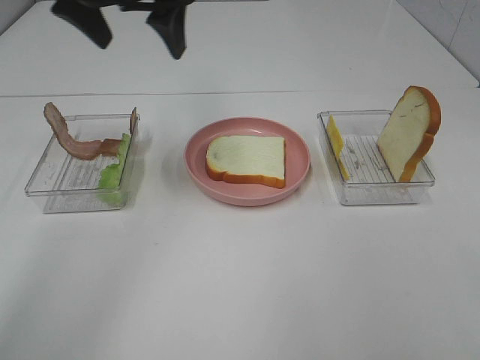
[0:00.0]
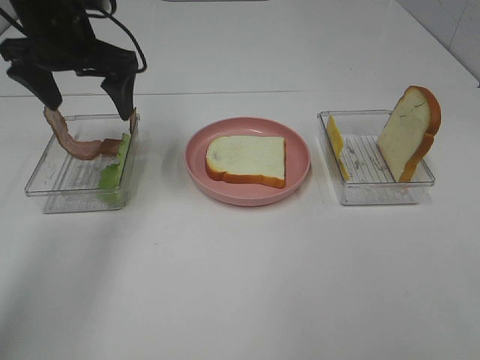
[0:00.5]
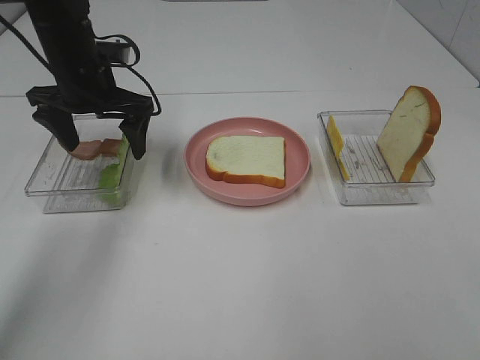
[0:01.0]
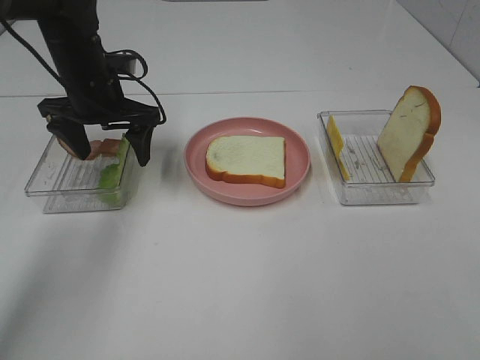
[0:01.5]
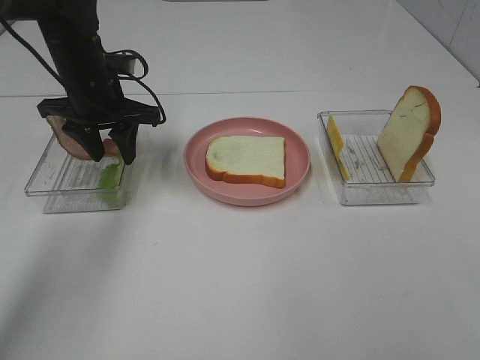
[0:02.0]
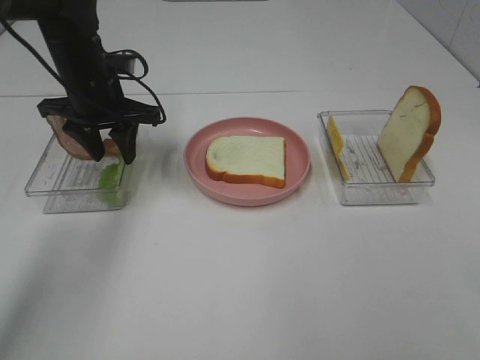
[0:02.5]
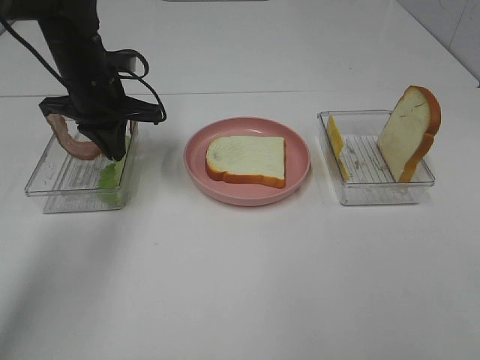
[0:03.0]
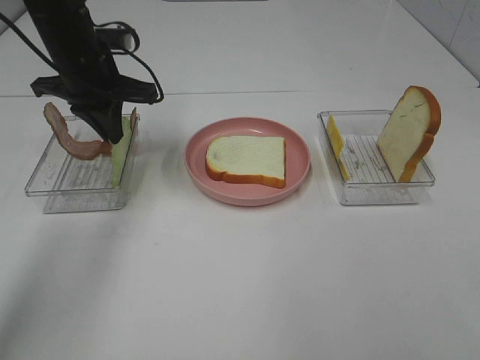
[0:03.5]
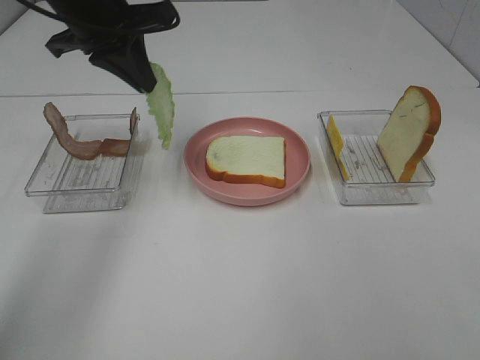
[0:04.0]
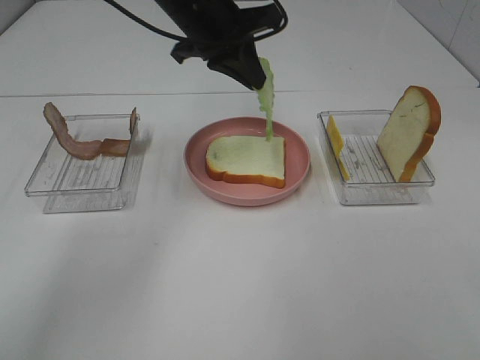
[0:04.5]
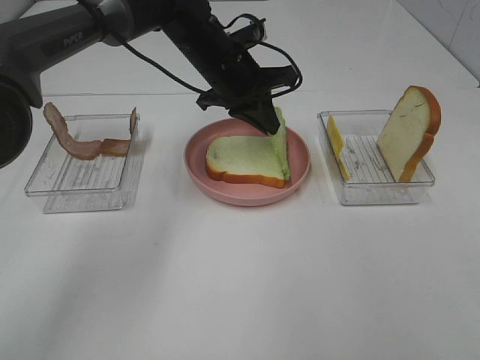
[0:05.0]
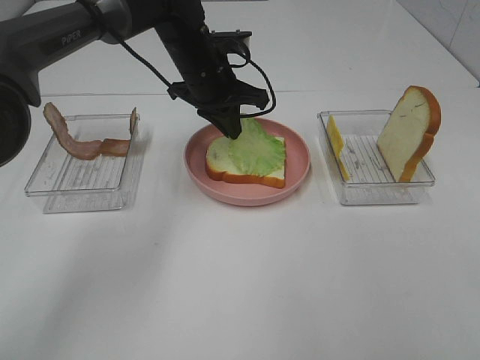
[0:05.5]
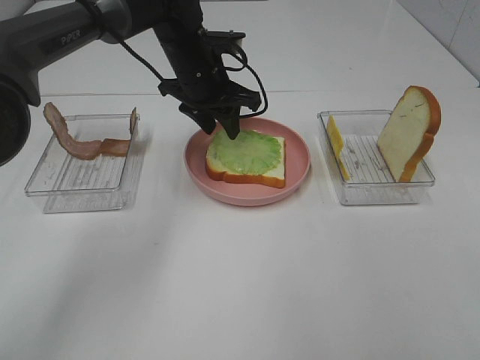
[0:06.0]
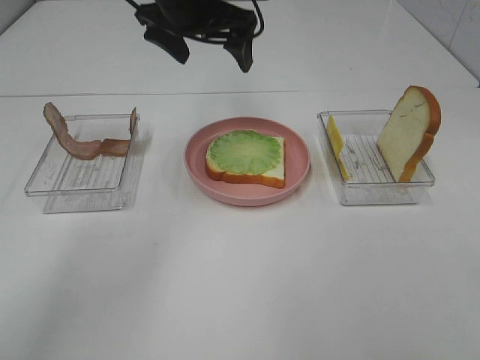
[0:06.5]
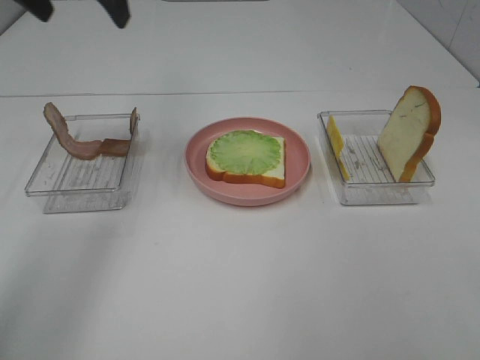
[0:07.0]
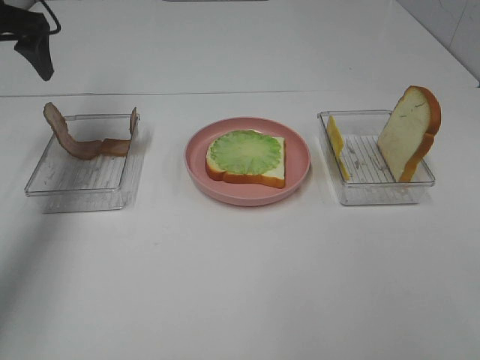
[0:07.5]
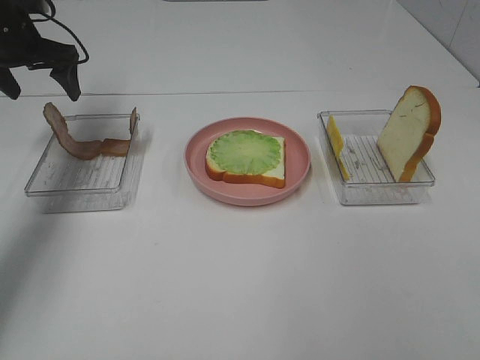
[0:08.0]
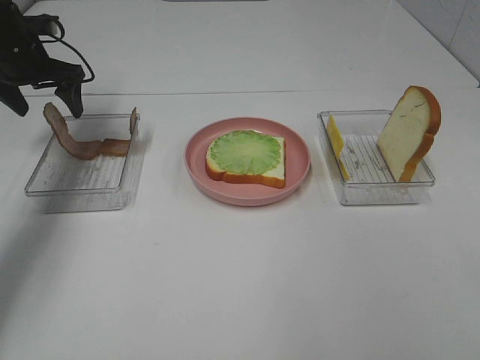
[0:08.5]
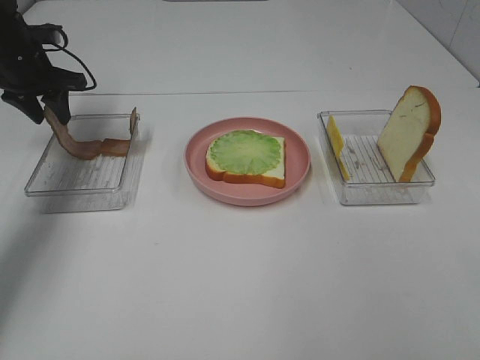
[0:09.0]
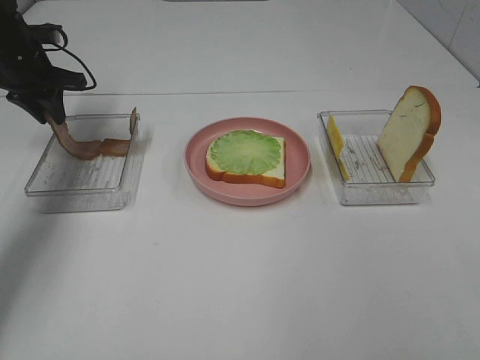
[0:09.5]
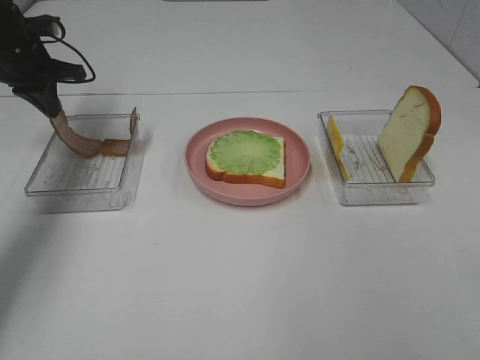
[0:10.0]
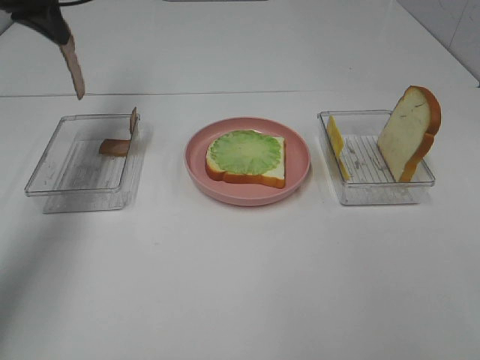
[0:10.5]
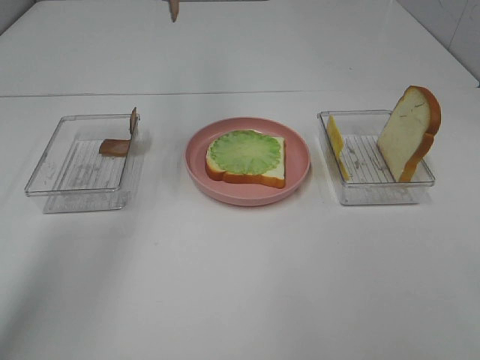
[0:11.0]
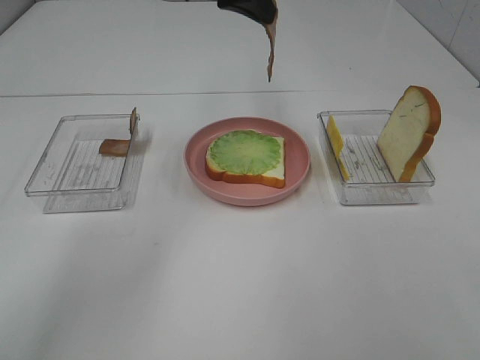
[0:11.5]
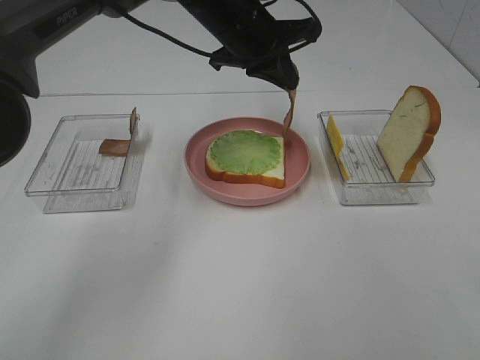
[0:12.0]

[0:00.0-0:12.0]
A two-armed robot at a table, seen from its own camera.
Task of the whole recording: Make sandwiches.
Step, 0:00.0 to 0:03.0: Left hand:grab the lettuce slice.
Step, 0:03.5 to 0:06.0: Left hand:place the lettuce slice on the bread slice.
Step, 0:06.5 to 0:09.5: Left hand:grab the bacon.
0:00.0 to 0:02.0: The left gripper travels downward by about 15 cm, and closes.
0:02.0 to 0:04.0: The left gripper heads upward, covering some 10 cm, and closes its fingers.
0:04.0 to 0:06.0: The left gripper is displaced downward, to the right and forward by about 15 cm, and opens.
0:06.0 to 0:08.0: The left gripper heads to the left, covering approximately 25 cm, and opens.
0:08.0 to 0:10.0: The left gripper closes.
0:10.0 to 0:12.0: The left gripper heads to the right, covering about 30 cm.

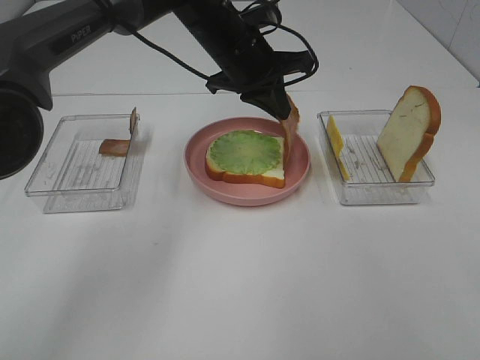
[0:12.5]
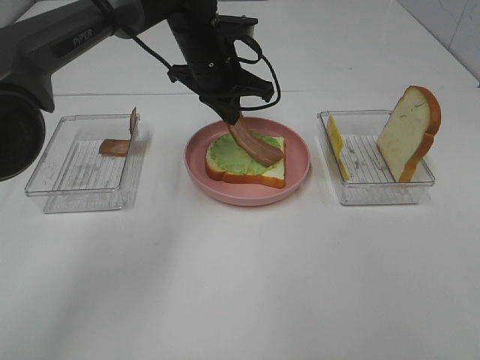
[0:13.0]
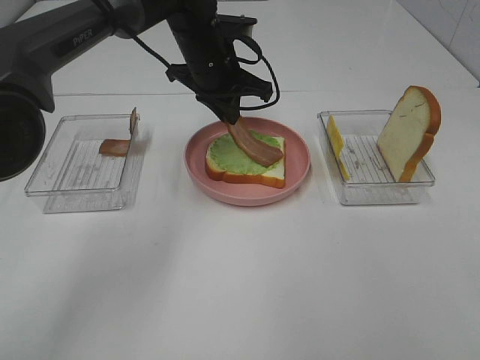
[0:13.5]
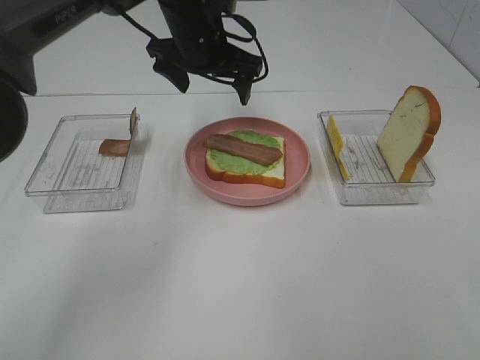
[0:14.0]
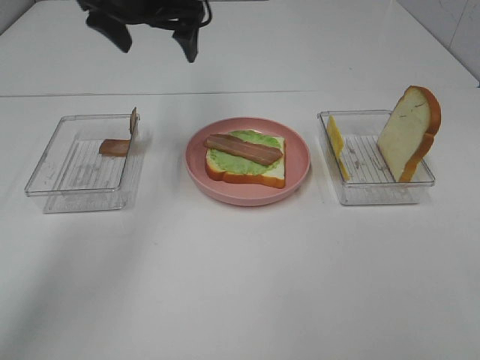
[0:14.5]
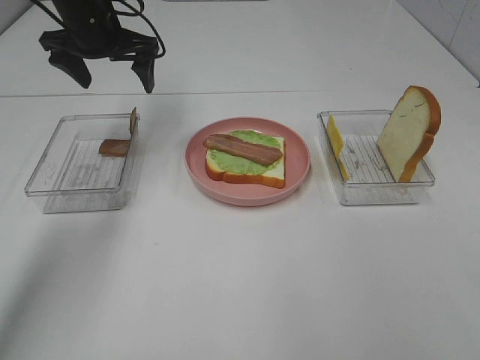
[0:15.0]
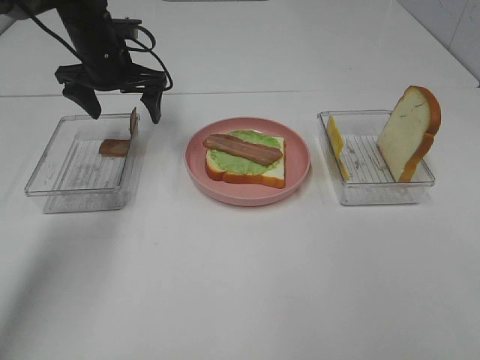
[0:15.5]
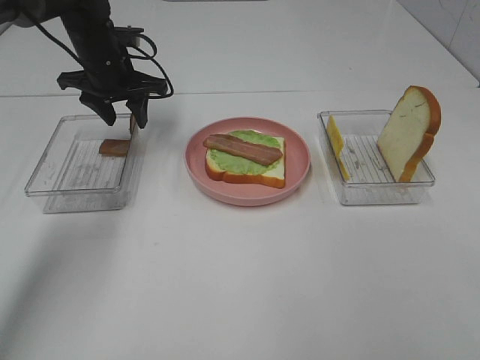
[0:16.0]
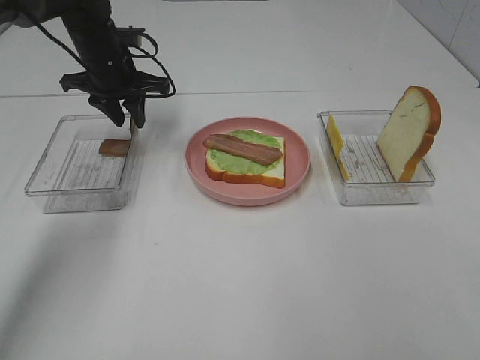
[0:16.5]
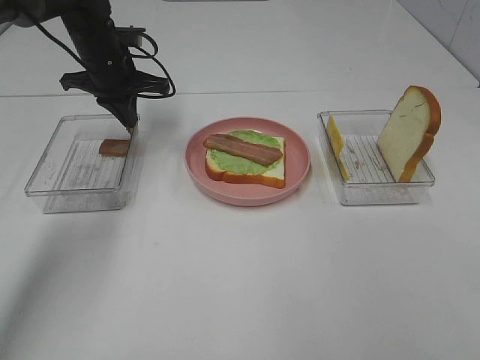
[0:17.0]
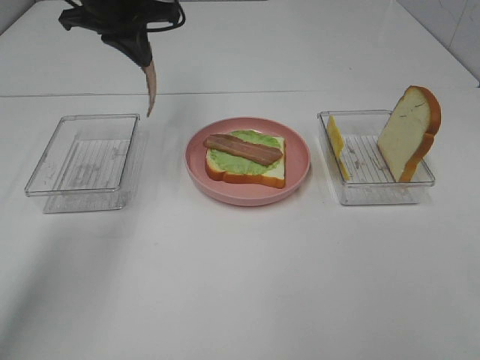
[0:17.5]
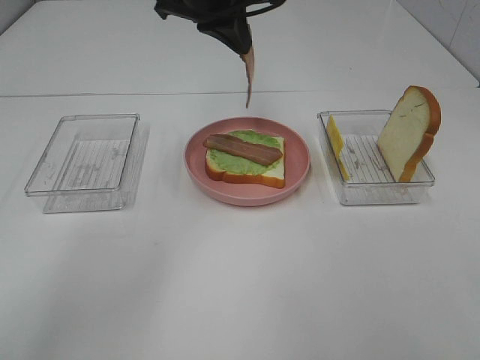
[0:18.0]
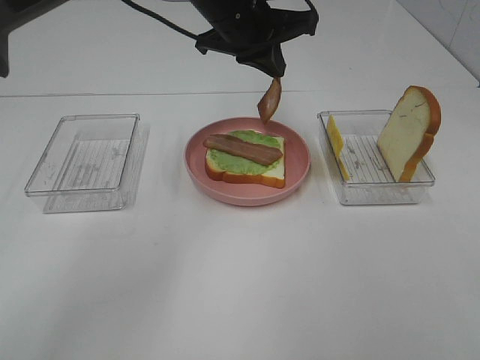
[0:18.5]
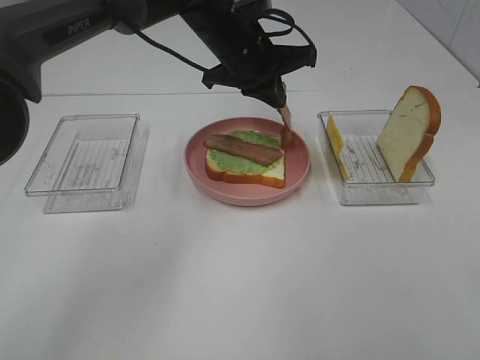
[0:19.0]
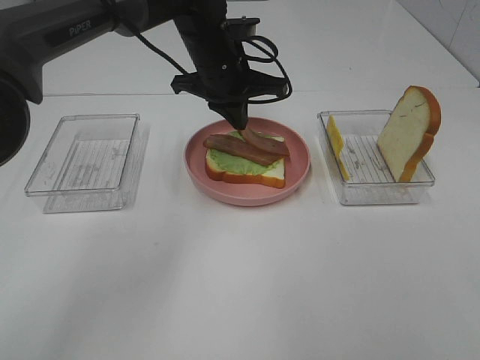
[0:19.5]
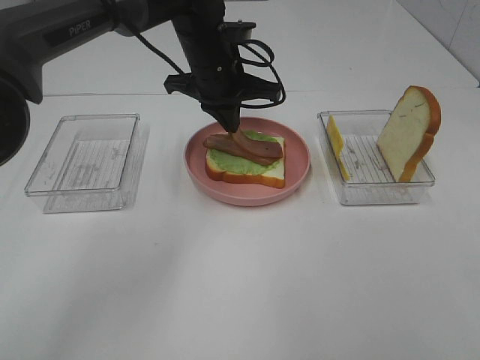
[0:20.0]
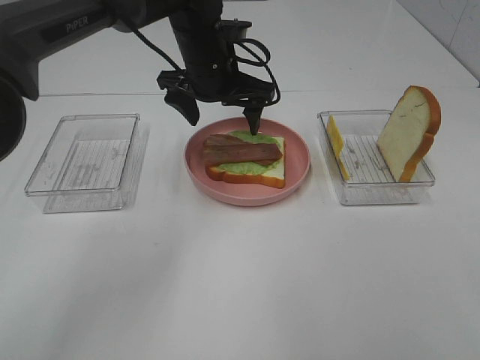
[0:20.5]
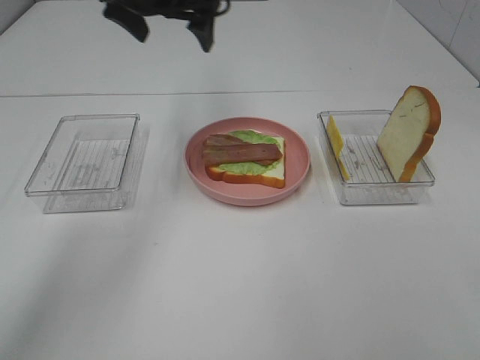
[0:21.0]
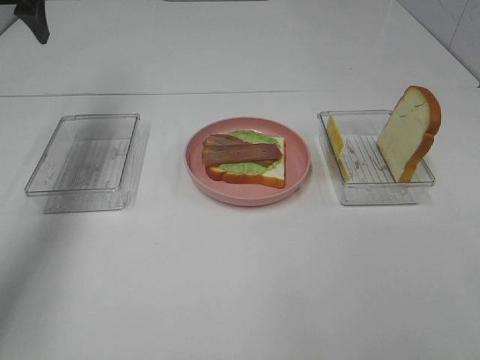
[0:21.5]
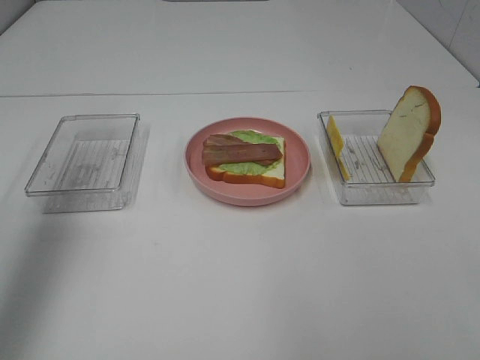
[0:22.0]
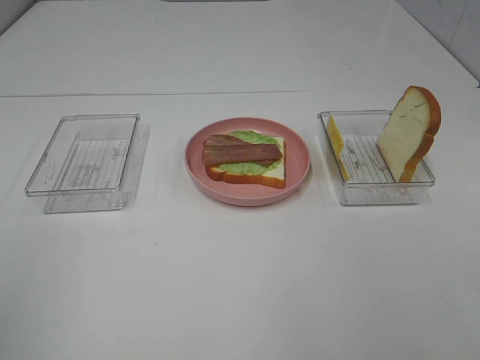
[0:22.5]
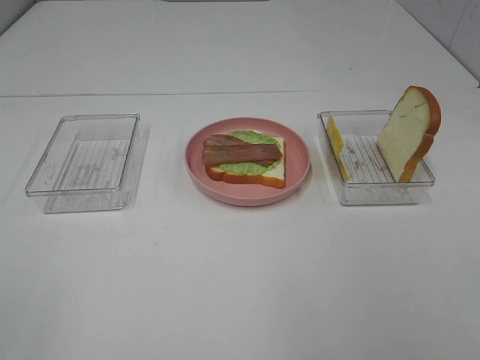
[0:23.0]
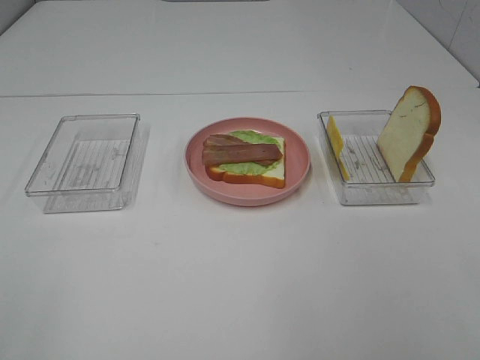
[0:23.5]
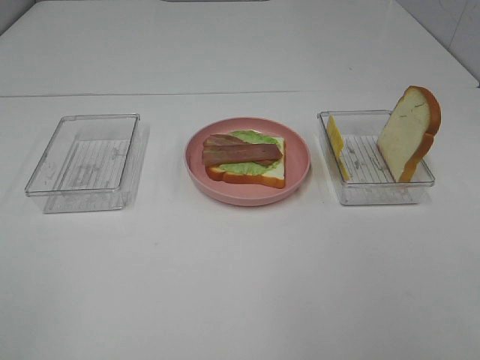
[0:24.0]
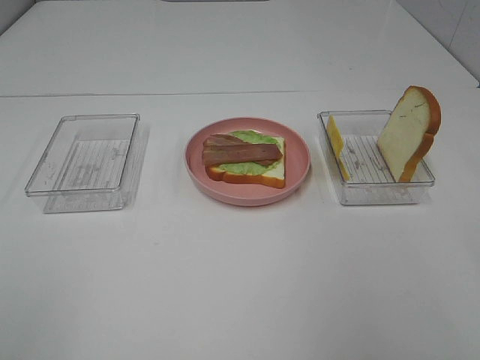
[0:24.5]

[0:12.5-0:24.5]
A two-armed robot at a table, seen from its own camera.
Task of the whole recording: Make sandwiches.
Step, 0:14.0 to 0:17.0: Left hand:grab the bacon.
Step, 0:17.5 to 0:20.0: Left hand:place bacon on bacon.
0:12.5 to 0:14.5: The left gripper is displaced to the left and upward by roughly 15 cm, and opens up.
0:14.5 to 0:16.5: The left gripper is displaced downward and to the left by roughly 15 cm, and closes up.
0:16.5 to 0:18.5: The left gripper goes roughly 20 cm to the right and upward.
0:18.5 to 0:20.5: The left gripper is displaced downward by approximately 5 cm, and opens.
0:20.5 to 0:22.5: The left gripper moves backward and to the left, some 50 cm.

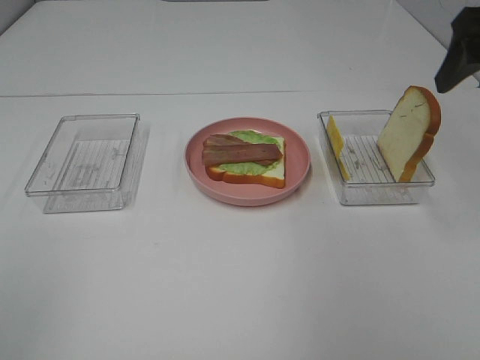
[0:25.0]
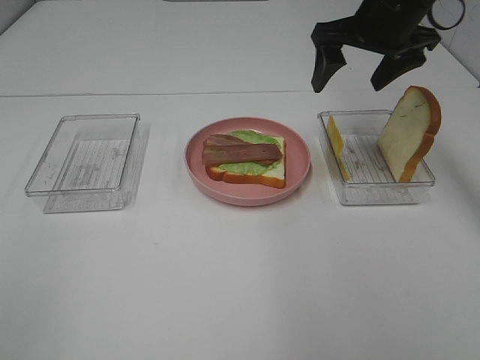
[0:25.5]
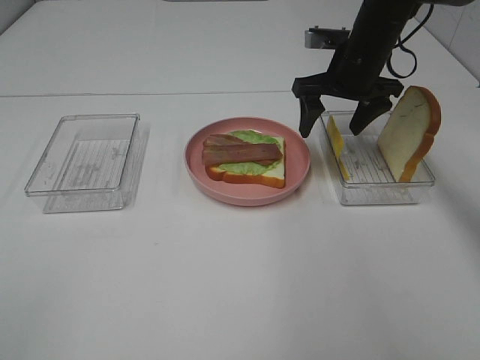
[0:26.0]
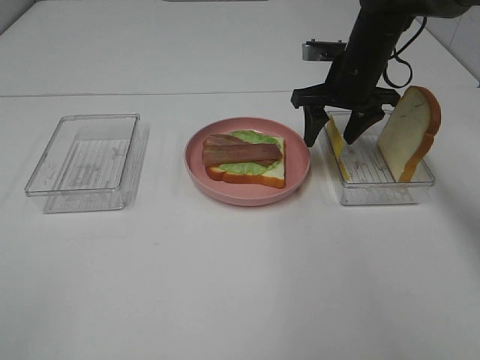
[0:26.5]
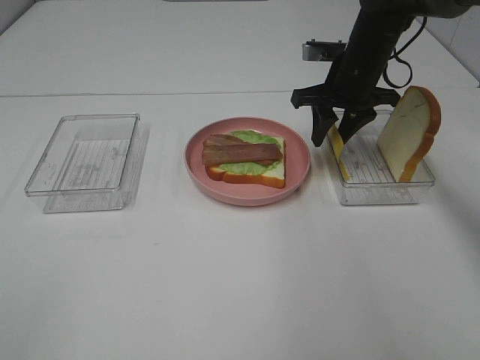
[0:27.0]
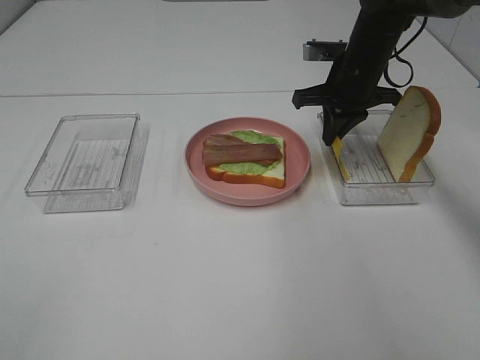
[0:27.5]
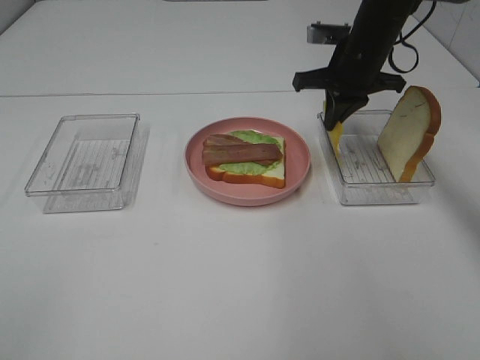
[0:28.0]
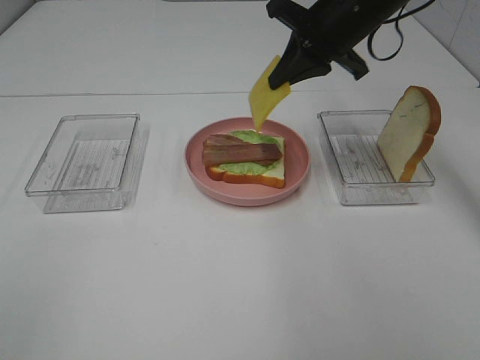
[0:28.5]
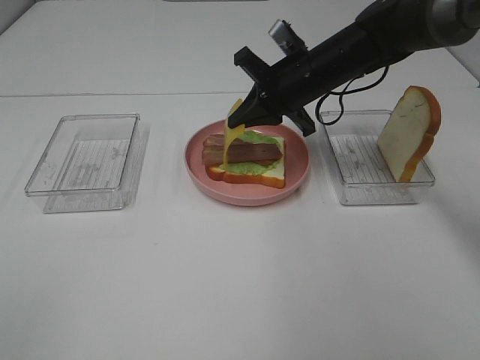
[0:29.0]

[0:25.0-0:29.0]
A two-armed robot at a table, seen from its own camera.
Task of the whole recording: Make sandwiches.
Step, 0:25.0 to 0:27.5: Right hand:grab the cheese slice.
0:25.0 to 0:27.0: The right gripper moves forward, downward and to the left, about 25 cm, and closes up.
0:27.0 to 0:29.0: The right gripper moves to the left, some 5 cm, moves some 10 cm upward and comes back, and closes.
